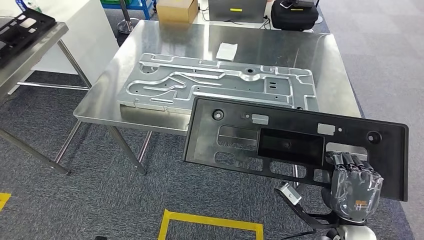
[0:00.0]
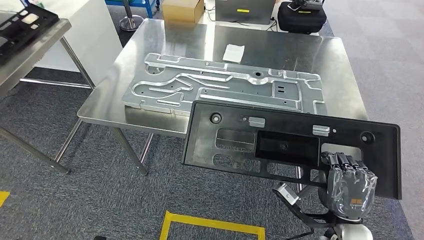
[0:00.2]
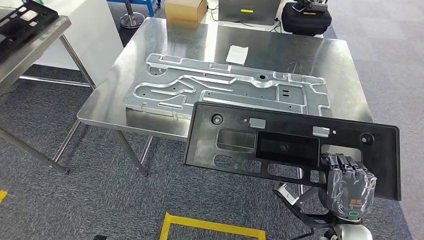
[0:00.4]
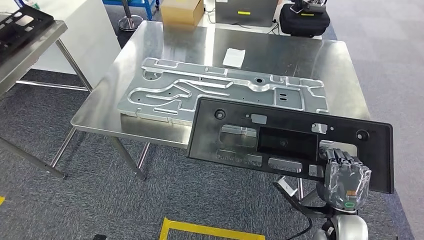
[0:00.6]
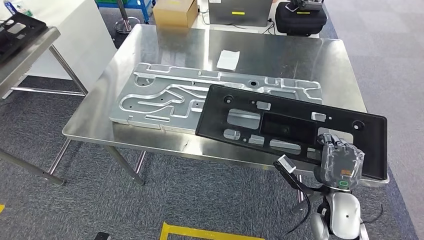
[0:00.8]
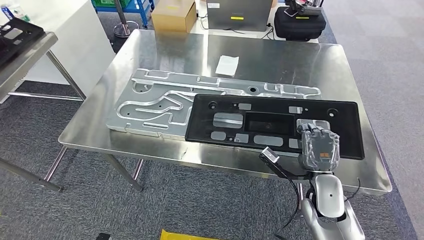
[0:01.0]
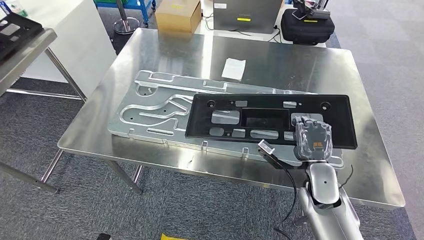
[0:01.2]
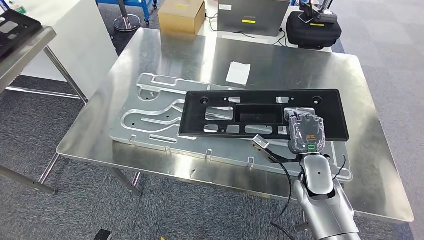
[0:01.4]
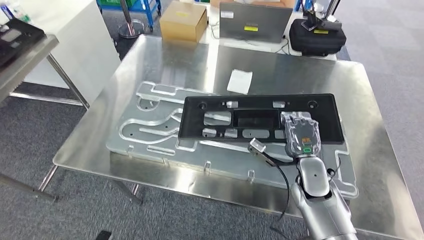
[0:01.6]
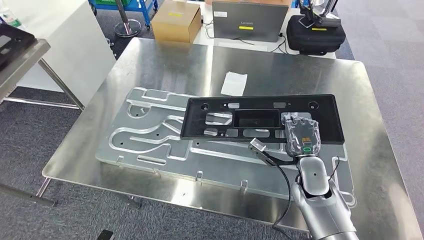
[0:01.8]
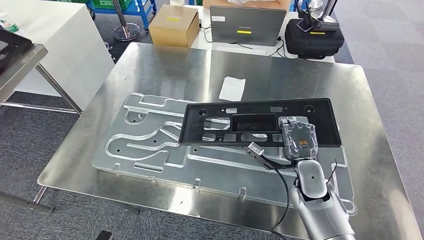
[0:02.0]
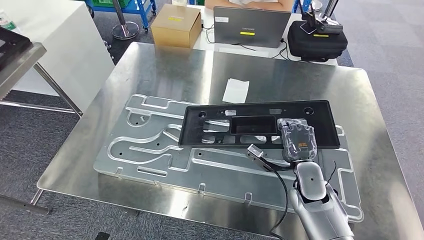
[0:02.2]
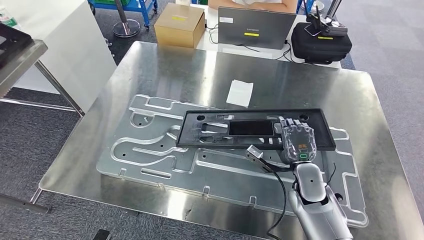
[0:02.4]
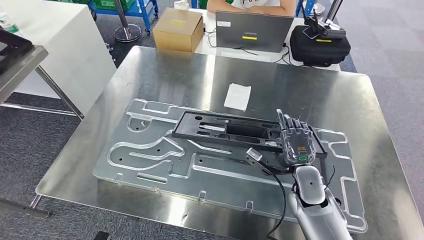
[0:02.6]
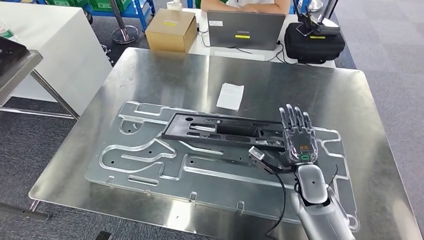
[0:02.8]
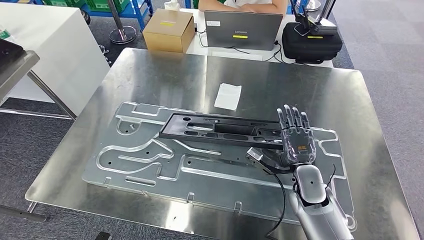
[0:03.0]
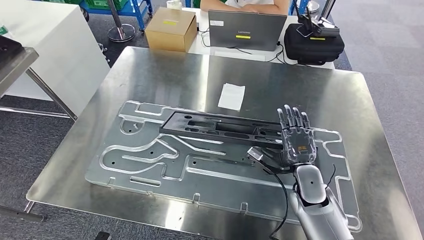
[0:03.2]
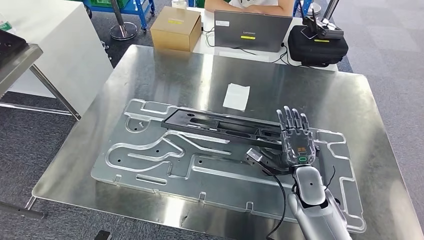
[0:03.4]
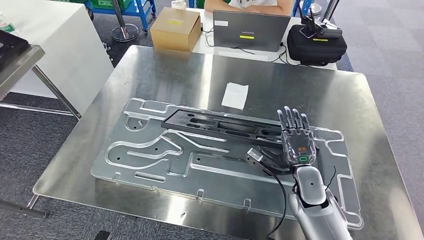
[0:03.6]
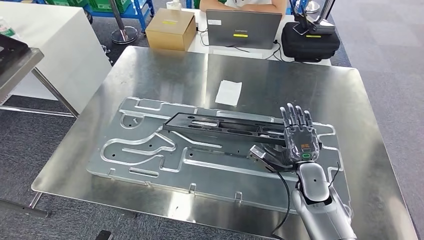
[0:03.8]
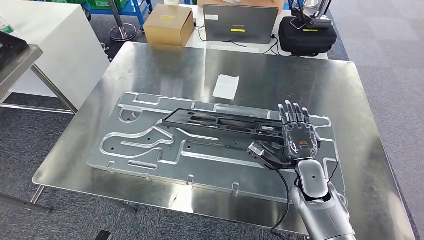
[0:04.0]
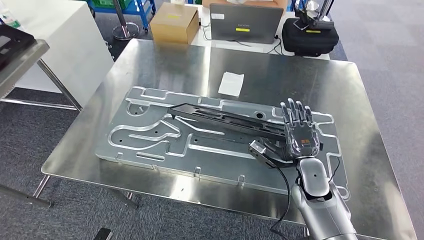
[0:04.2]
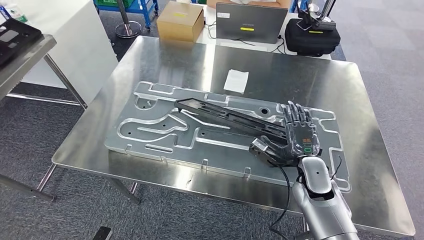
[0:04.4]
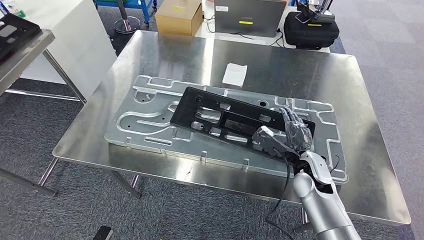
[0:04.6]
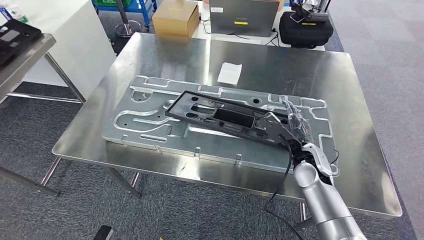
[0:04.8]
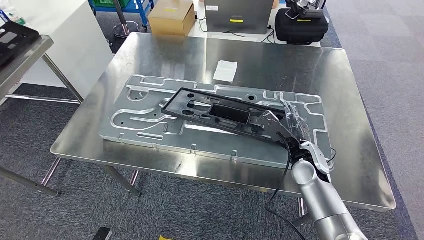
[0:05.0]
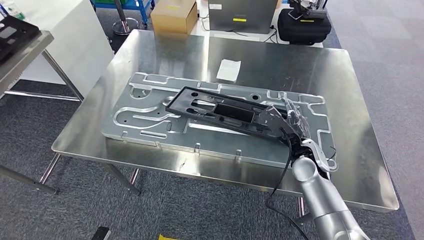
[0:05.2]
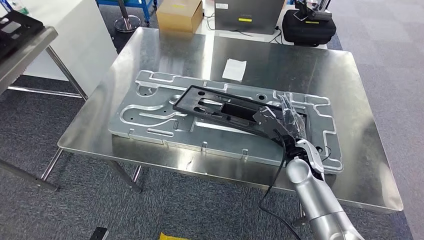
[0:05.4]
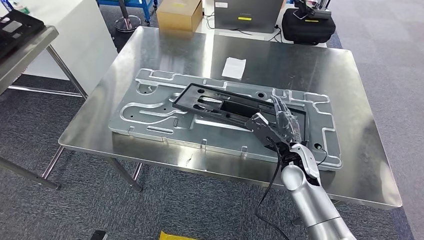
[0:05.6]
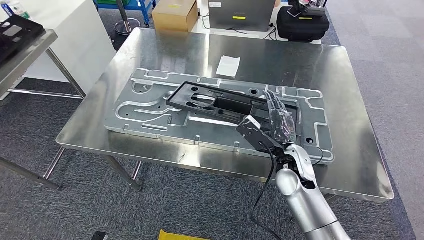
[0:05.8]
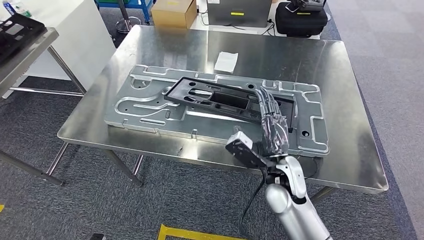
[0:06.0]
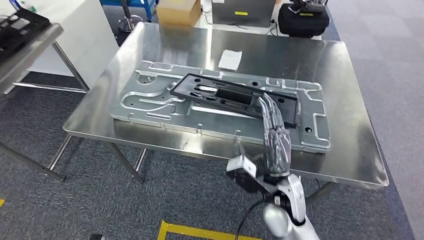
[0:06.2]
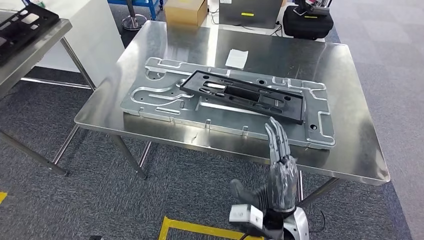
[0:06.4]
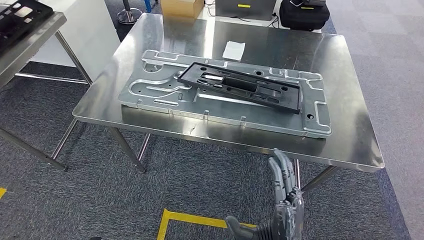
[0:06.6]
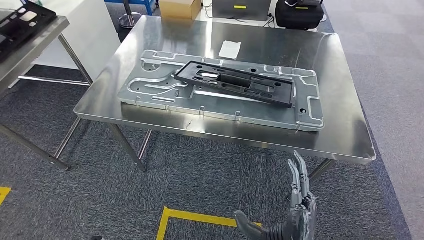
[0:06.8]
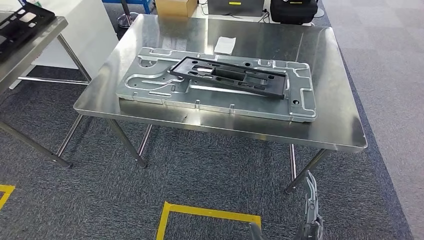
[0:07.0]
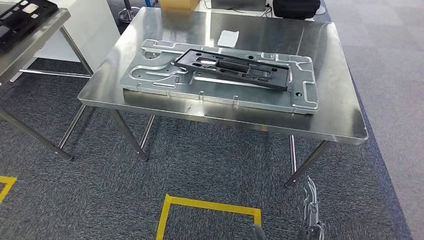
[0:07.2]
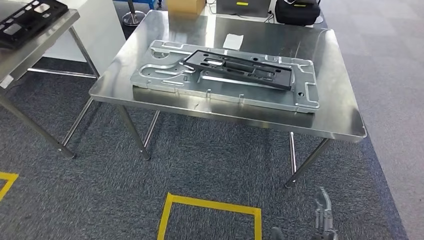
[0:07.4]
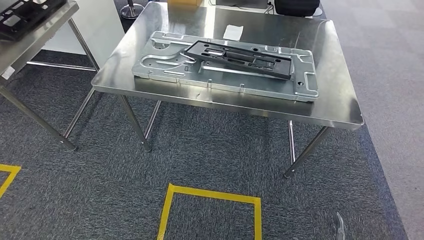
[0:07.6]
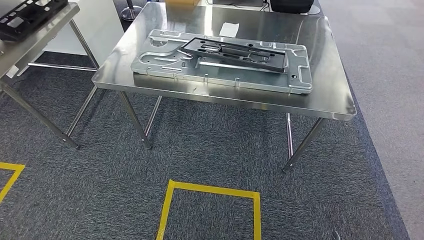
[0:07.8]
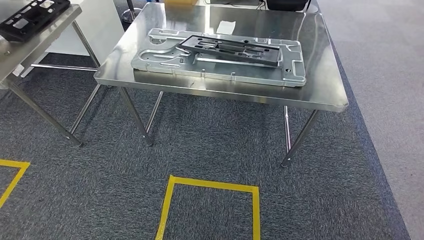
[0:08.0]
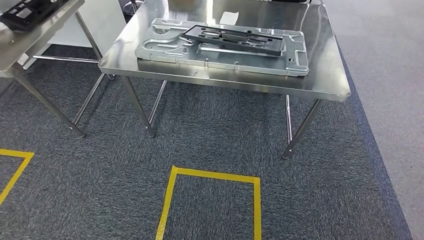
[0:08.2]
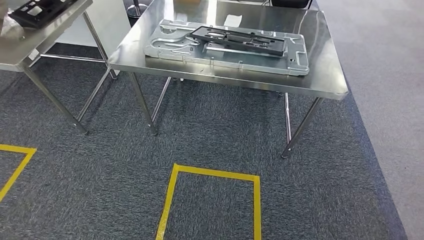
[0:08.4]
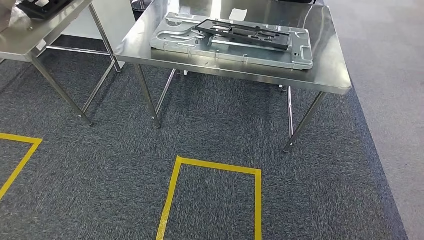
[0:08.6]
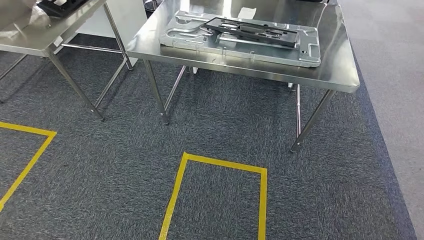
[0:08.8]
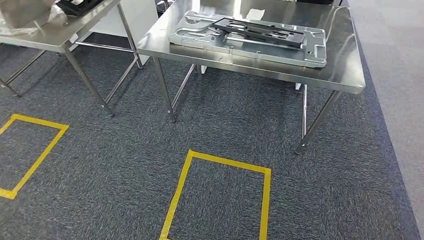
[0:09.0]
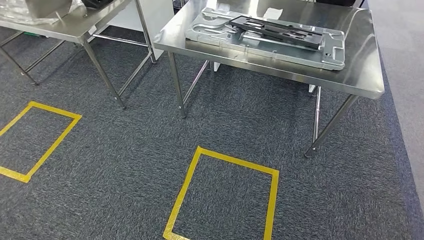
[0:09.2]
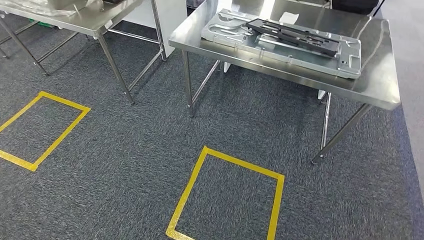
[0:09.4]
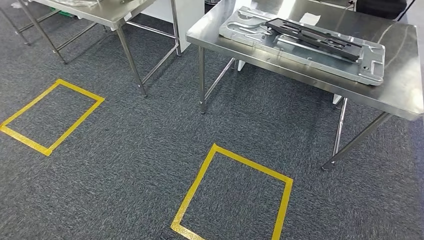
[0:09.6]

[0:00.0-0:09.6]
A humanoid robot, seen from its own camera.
Step, 0:00.0 to 0:07.2: Insert the large material into the corresponding hole on the workbench.

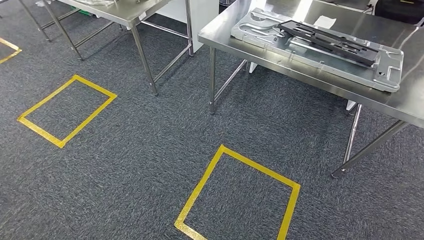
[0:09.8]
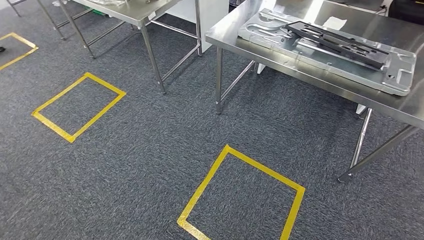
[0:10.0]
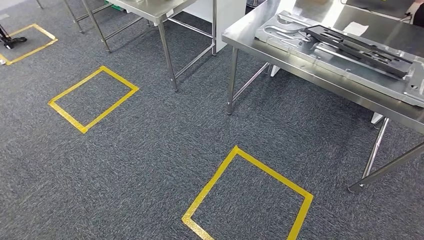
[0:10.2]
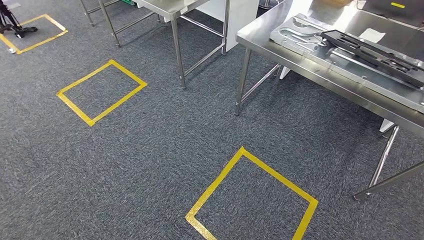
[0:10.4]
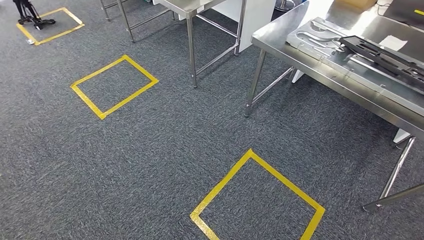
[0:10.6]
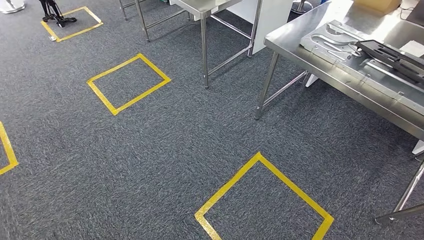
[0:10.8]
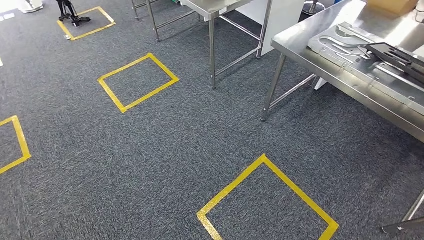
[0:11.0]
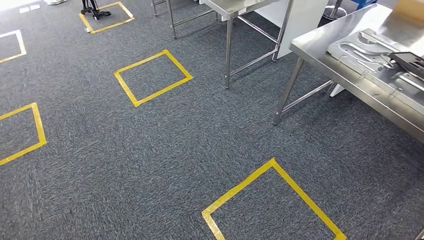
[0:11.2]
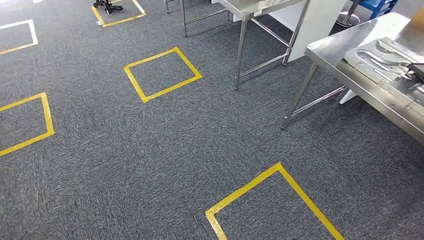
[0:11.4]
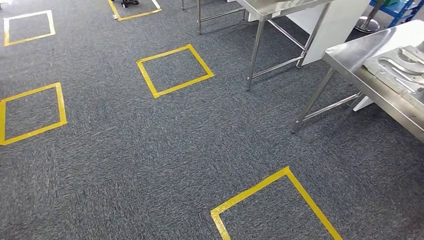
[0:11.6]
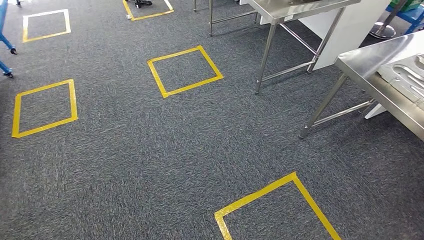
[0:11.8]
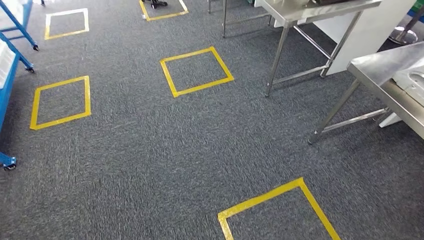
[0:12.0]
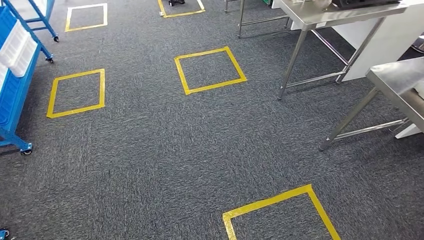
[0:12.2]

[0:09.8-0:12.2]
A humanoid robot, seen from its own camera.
Step, 0:09.8 to 0:12.2: Move to the initial position of the shelf.

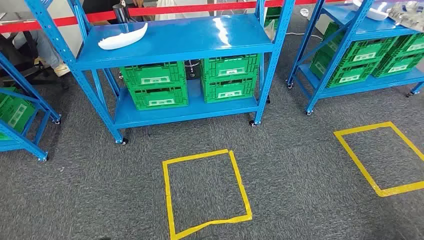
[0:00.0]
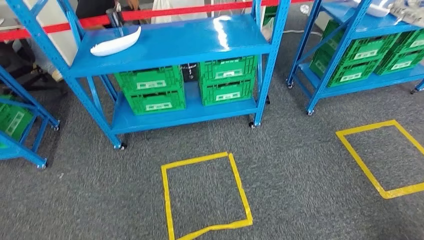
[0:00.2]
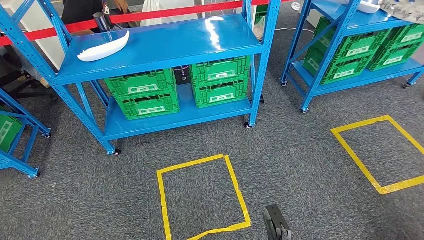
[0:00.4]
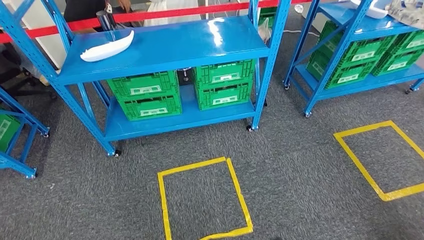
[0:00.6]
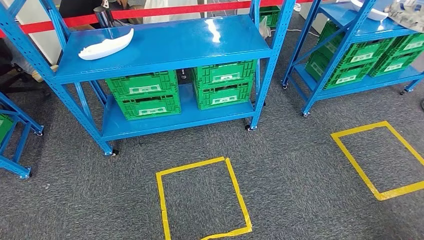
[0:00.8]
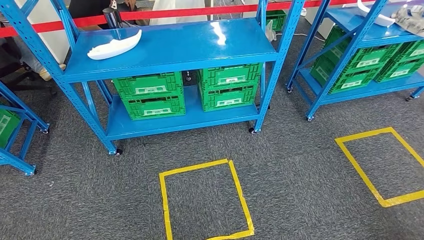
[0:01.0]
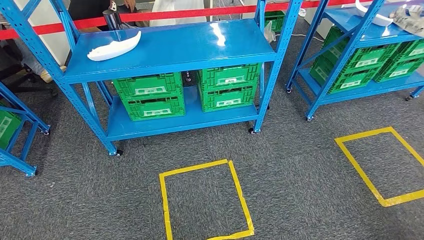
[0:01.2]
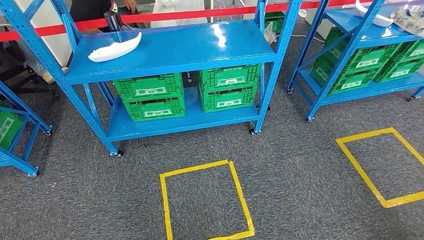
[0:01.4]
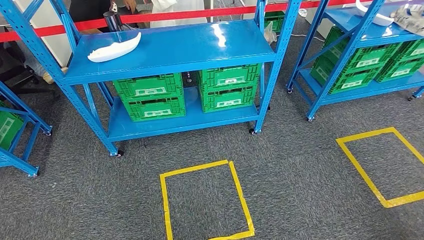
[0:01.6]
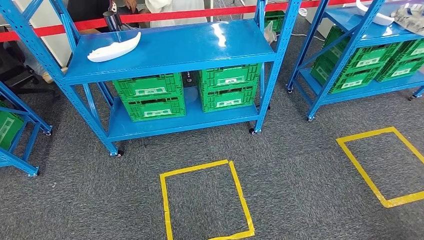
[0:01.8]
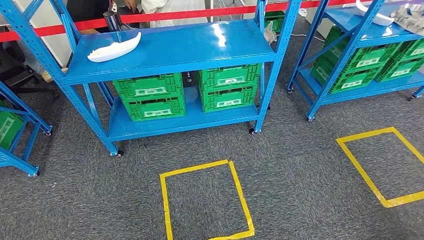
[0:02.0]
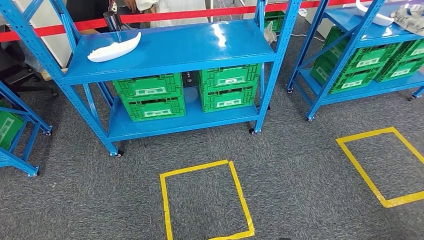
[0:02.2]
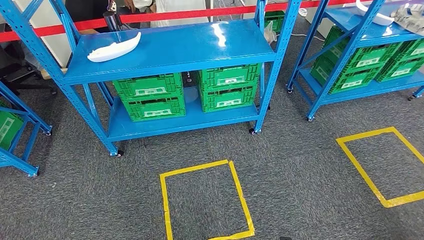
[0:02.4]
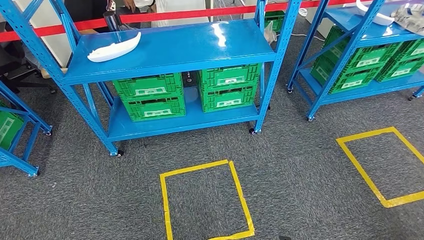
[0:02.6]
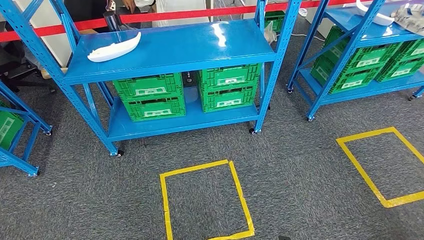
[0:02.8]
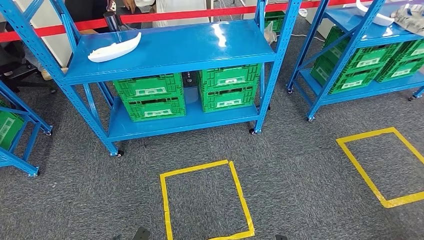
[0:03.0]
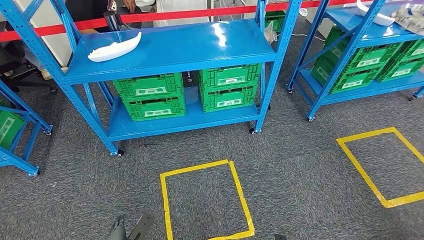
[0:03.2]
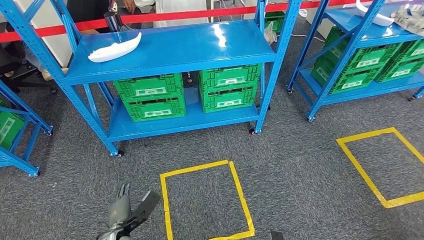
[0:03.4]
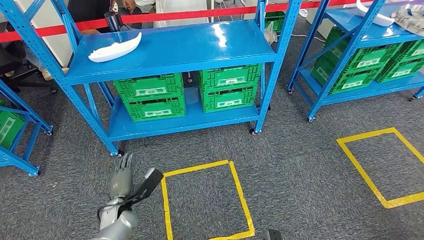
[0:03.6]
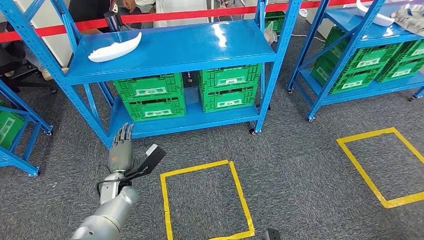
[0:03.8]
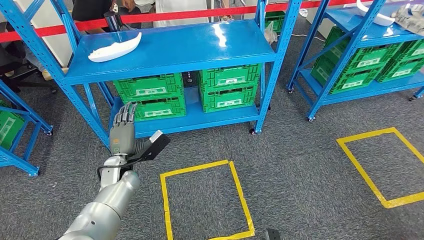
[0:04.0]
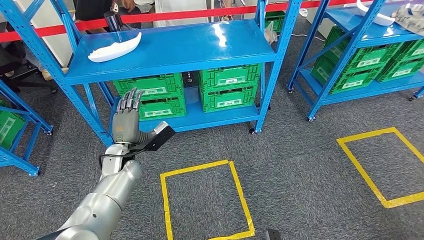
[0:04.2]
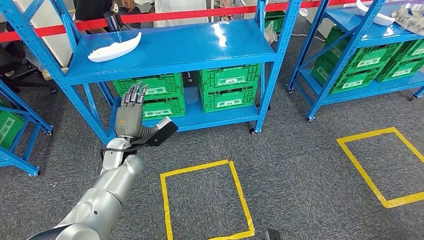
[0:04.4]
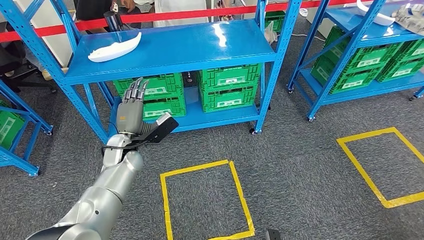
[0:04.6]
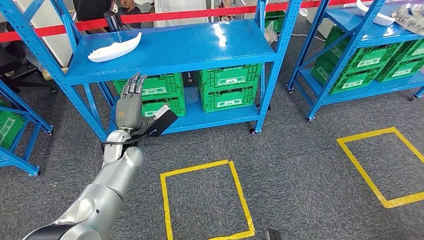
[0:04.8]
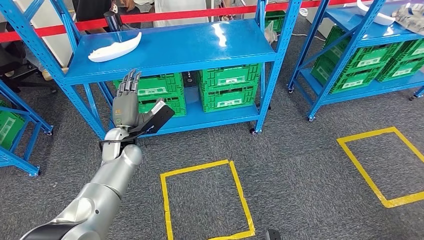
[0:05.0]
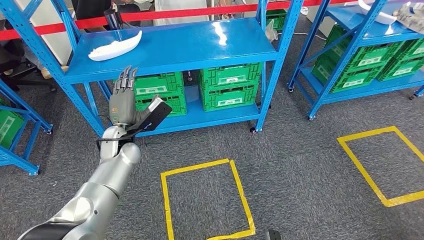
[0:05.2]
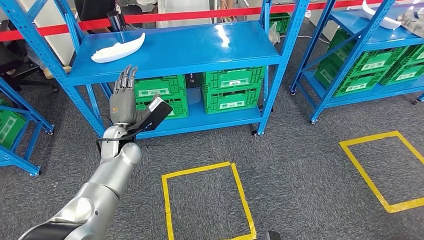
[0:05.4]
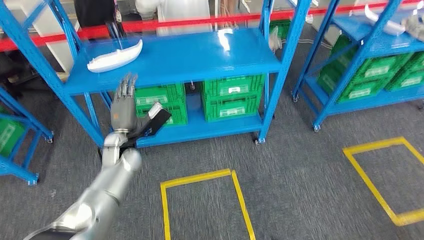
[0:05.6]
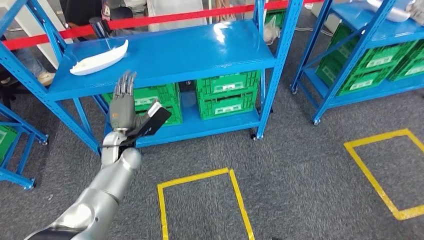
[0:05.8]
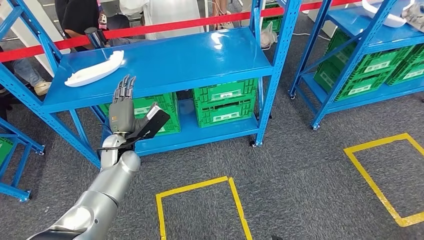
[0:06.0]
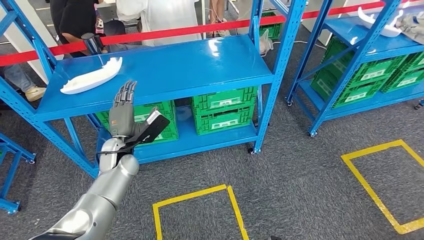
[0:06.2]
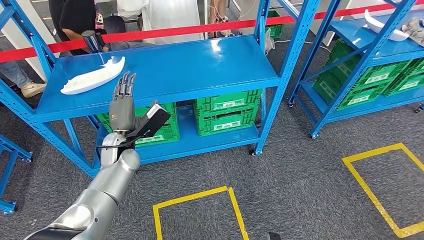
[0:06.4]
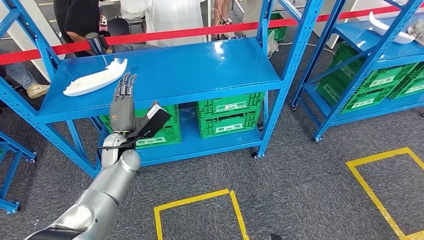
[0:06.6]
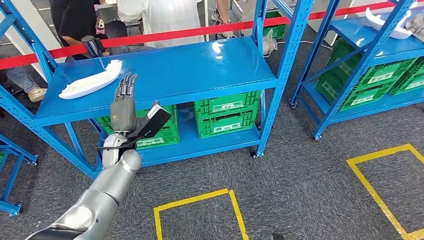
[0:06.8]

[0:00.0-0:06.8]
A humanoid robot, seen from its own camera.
0:01.4 to 0:02.8: The right hand shifts by roughly 5 cm, while the left hand goes some 10 cm forward and to the right.
0:02.8 to 0:04.0: The left hand goes about 35 cm forward and upward.
